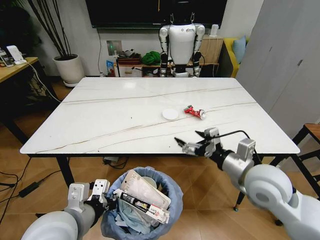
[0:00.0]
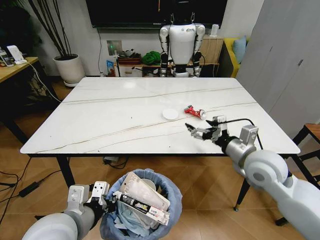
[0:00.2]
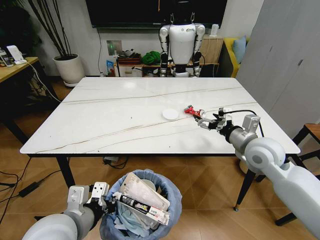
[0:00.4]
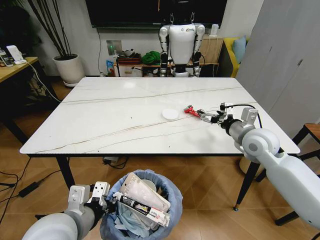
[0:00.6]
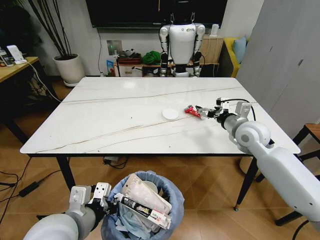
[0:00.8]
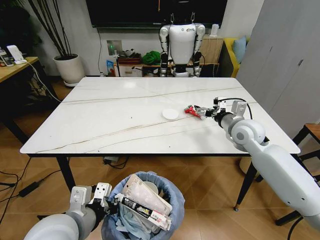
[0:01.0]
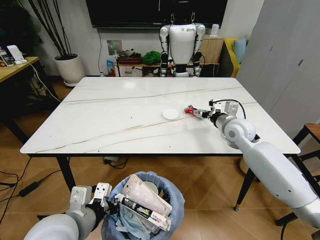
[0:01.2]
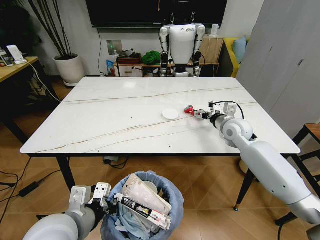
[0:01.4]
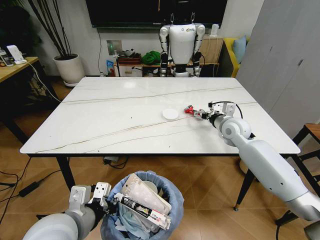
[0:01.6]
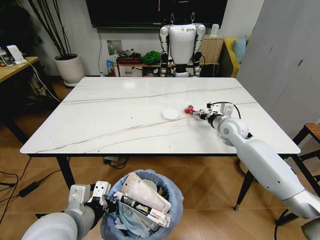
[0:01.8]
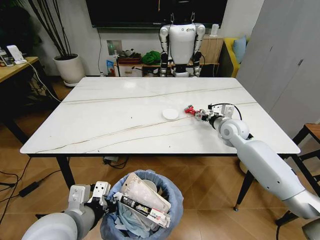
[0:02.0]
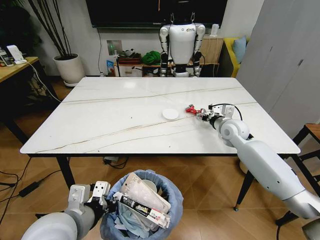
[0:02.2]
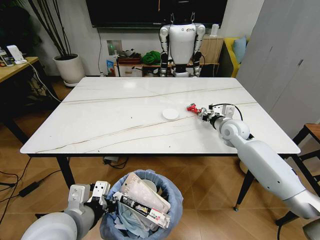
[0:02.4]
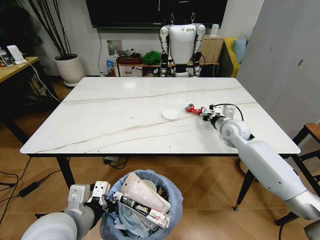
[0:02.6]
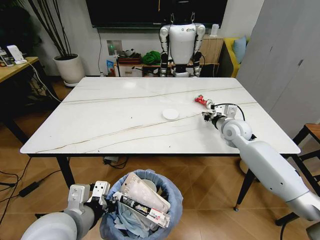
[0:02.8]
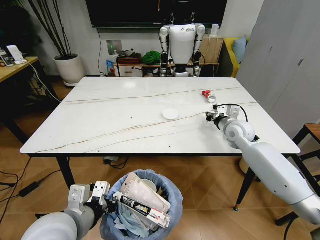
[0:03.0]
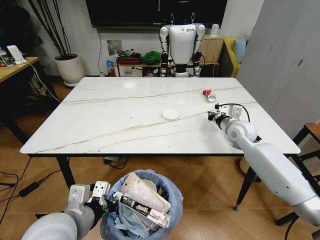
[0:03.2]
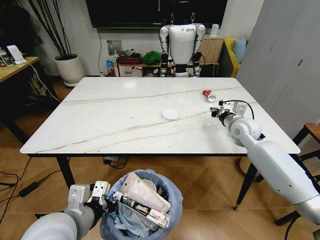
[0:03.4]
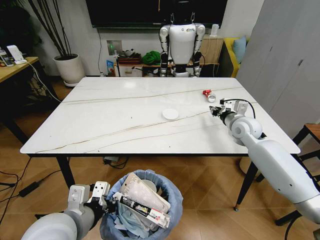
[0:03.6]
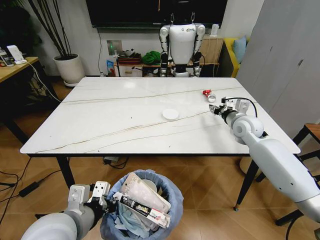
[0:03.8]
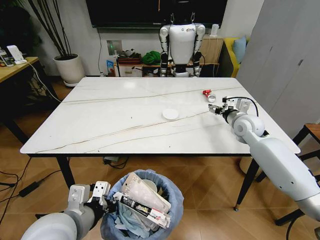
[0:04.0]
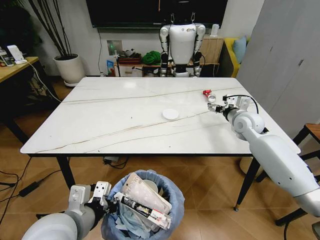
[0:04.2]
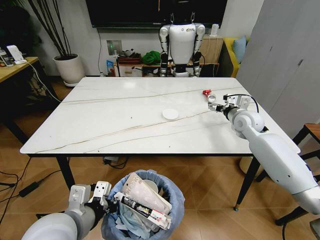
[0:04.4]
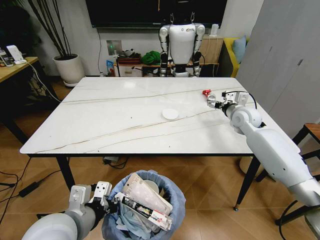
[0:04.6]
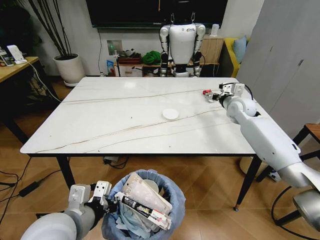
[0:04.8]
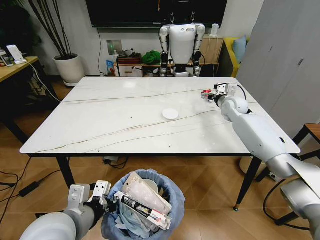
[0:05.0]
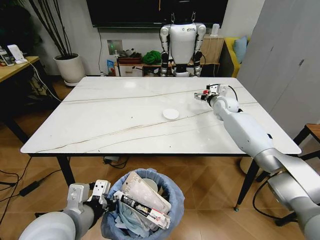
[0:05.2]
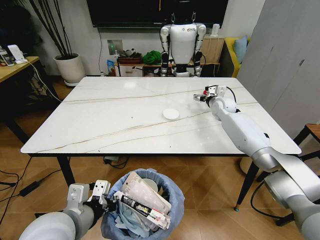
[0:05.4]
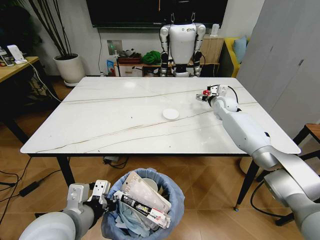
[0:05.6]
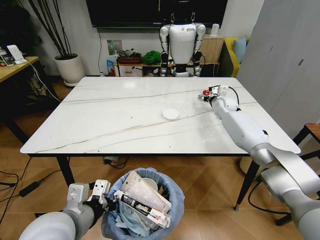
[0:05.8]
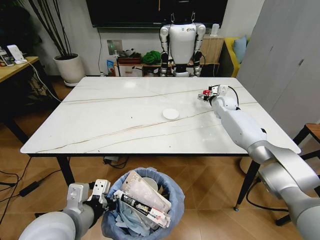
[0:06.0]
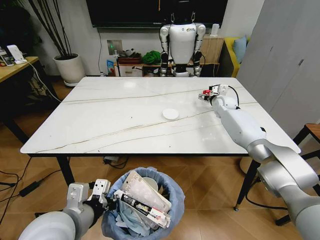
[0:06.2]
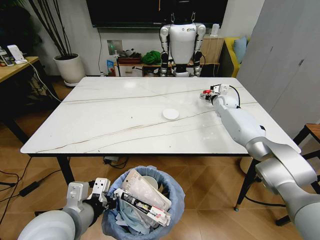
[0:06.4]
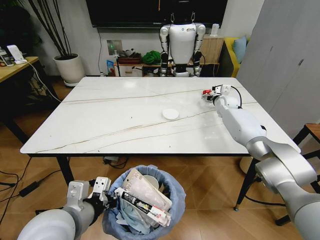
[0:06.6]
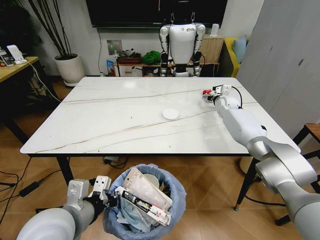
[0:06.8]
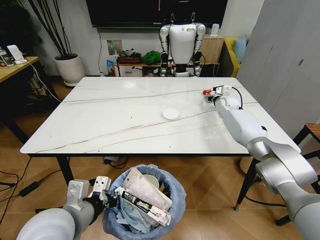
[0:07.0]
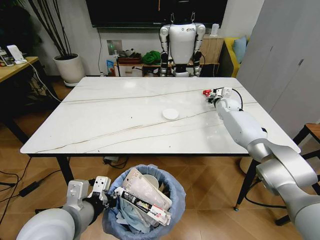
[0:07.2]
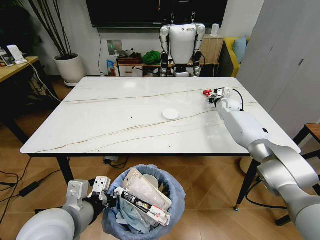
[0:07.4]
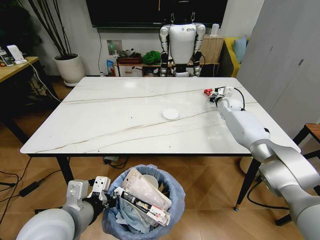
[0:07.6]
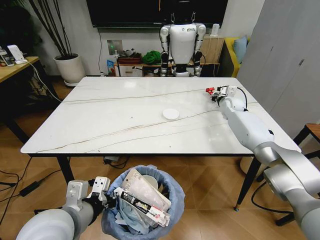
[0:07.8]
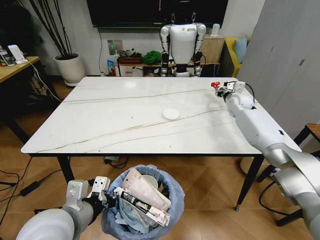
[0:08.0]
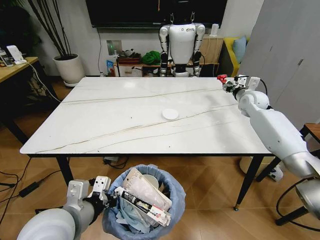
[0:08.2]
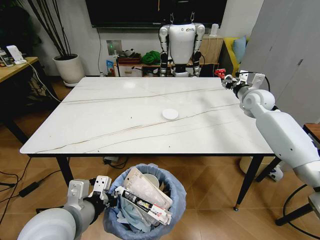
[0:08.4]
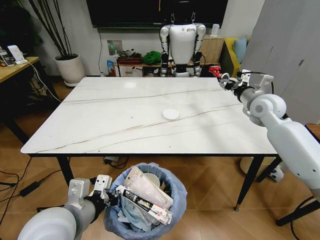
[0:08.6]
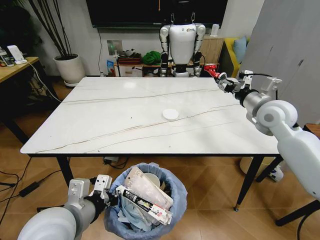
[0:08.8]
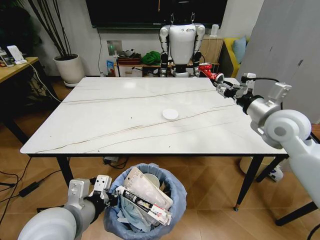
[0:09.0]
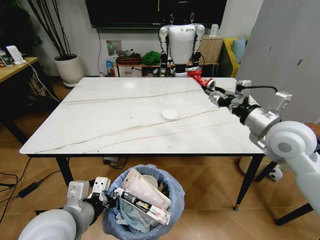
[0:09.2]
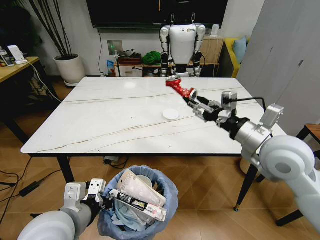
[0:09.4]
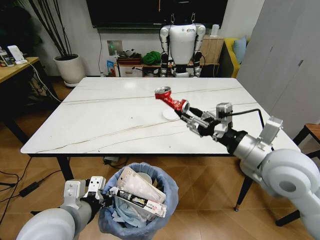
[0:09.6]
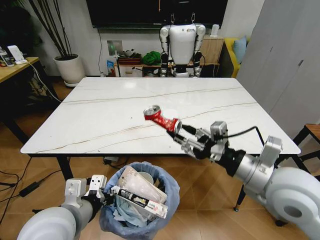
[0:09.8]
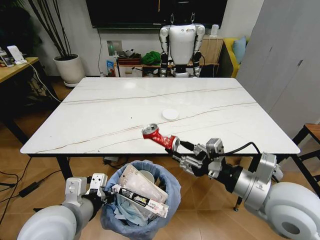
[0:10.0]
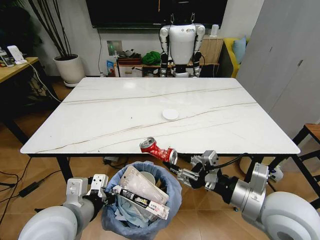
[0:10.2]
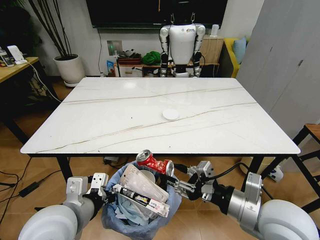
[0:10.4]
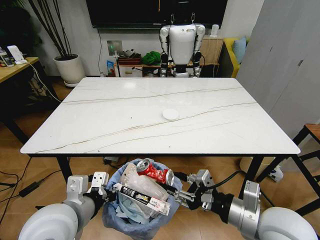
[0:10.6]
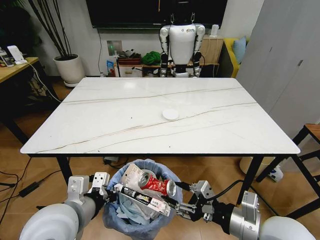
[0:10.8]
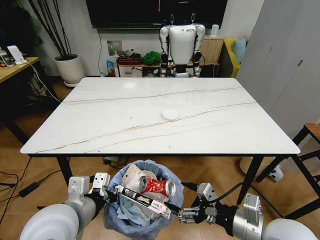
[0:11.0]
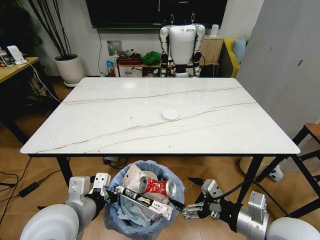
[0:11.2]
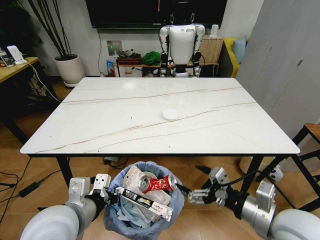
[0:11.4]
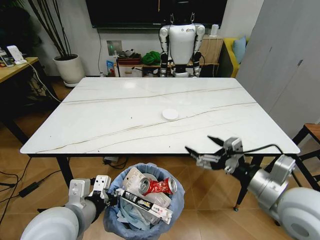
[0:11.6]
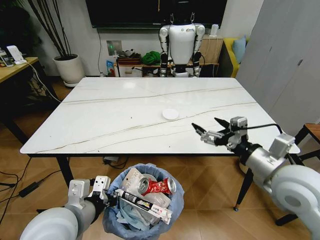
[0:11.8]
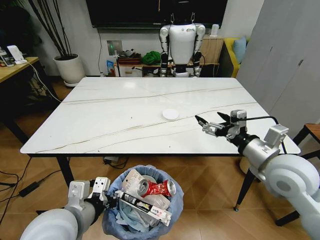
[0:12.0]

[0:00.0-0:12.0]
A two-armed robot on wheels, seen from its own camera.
Task of the whole recording: Pick up the trash bin and place the trash from the table into it.
0:00.0 to 0:01.6: The right gripper goes approximately 25 cm forward.
0:01.6 to 0:03.0: The right gripper closes.
0:03.0 to 0:04.4: The right gripper opens up.
0:04.4 to 0:06.0: The right gripper heads forward, covering roughly 15 cm.
0:06.0 to 0:07.6: The right gripper closes its fingers.
0:07.6 to 0:09.0: The right gripper moves backward and upward, some 30 cm.
0:09.0 to 0:10.4: The right gripper moves backward and to the left, roughly 20 cm.
0:10.4 to 0:12.0: The right gripper travels forward by roughly 10 cm, and opens up.

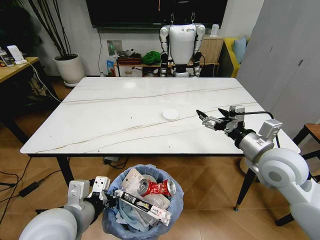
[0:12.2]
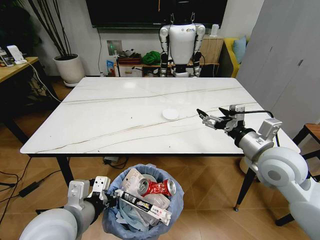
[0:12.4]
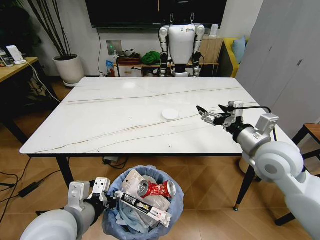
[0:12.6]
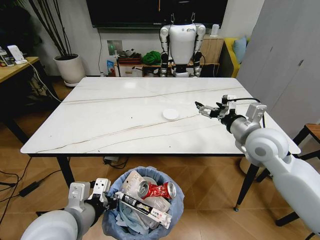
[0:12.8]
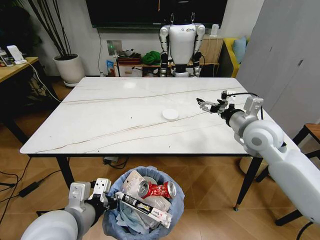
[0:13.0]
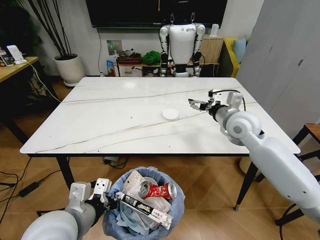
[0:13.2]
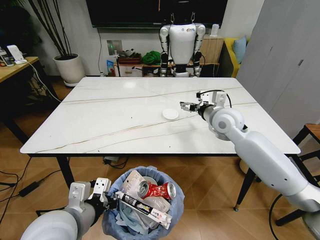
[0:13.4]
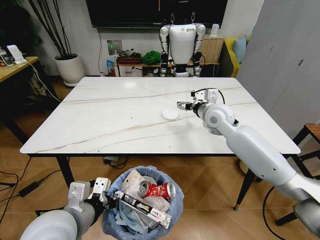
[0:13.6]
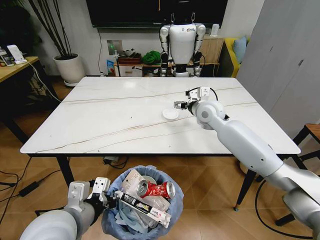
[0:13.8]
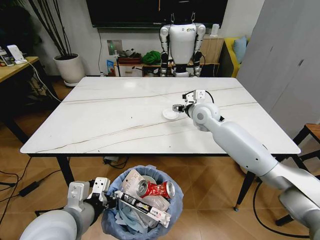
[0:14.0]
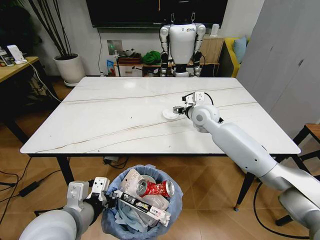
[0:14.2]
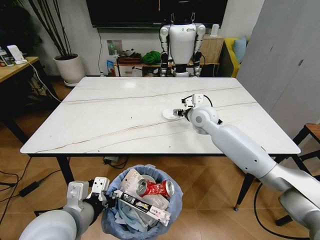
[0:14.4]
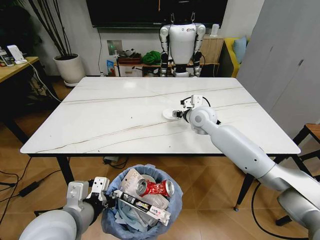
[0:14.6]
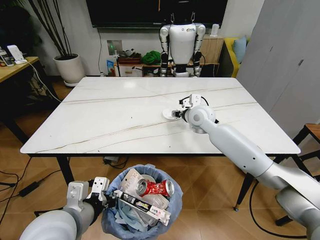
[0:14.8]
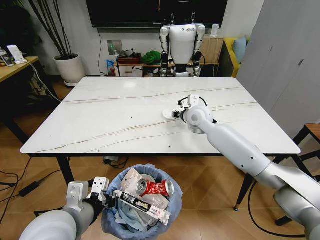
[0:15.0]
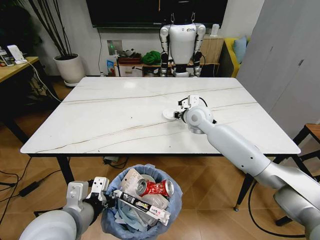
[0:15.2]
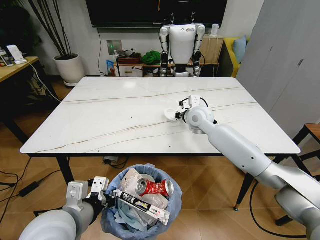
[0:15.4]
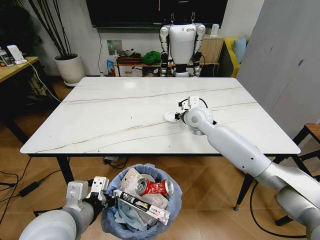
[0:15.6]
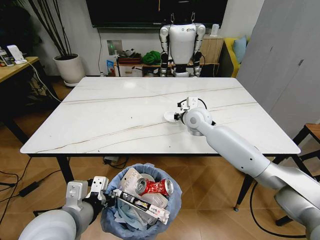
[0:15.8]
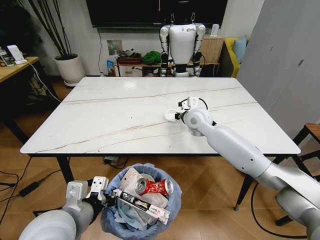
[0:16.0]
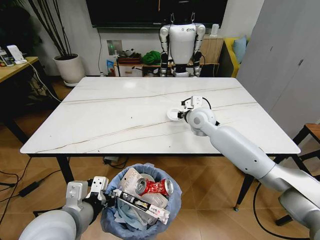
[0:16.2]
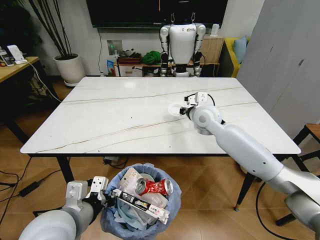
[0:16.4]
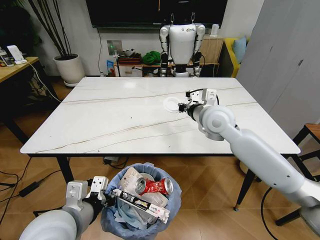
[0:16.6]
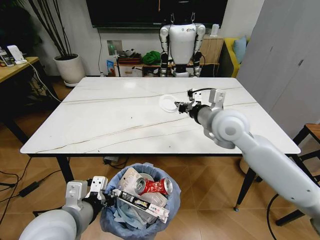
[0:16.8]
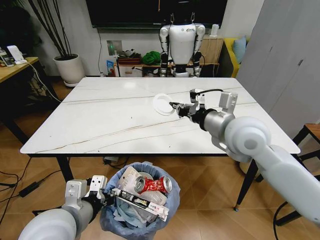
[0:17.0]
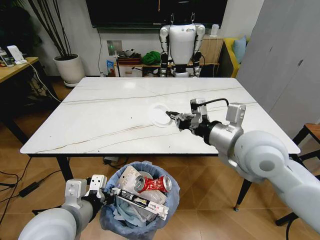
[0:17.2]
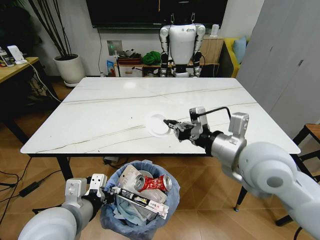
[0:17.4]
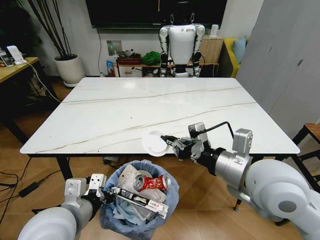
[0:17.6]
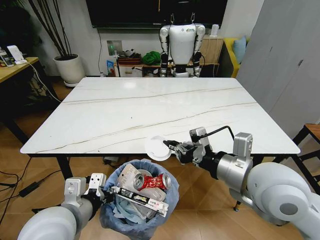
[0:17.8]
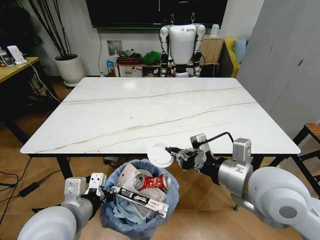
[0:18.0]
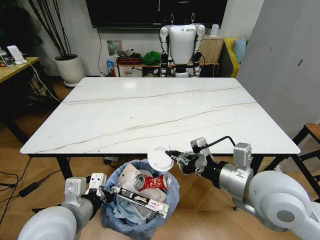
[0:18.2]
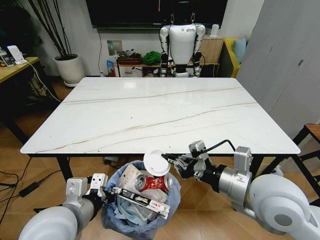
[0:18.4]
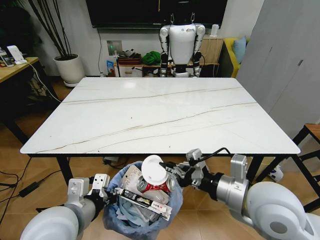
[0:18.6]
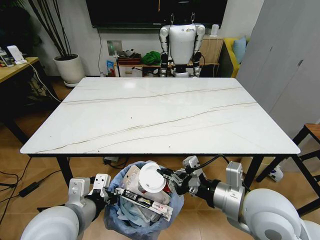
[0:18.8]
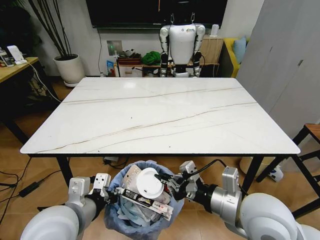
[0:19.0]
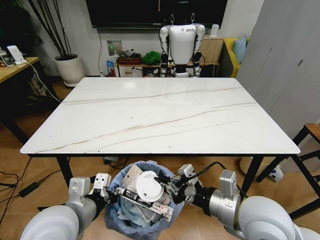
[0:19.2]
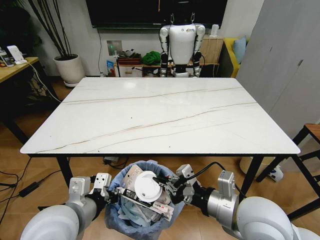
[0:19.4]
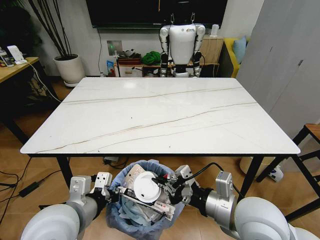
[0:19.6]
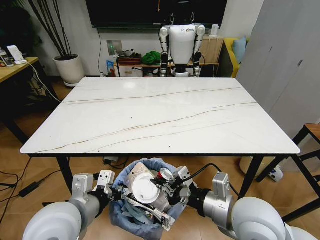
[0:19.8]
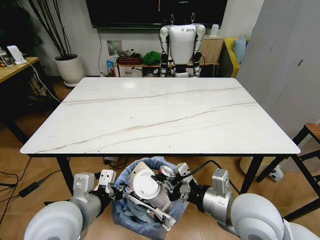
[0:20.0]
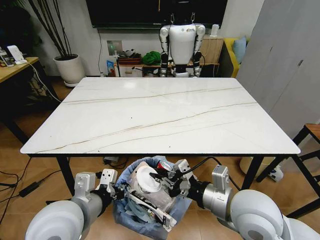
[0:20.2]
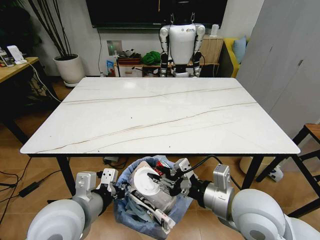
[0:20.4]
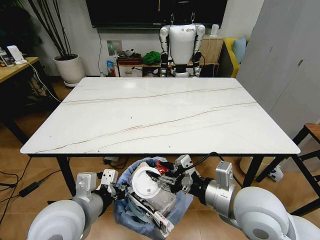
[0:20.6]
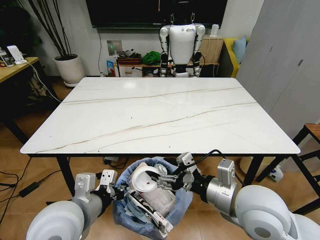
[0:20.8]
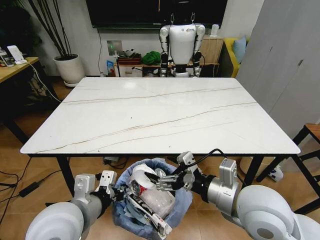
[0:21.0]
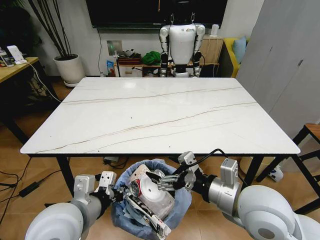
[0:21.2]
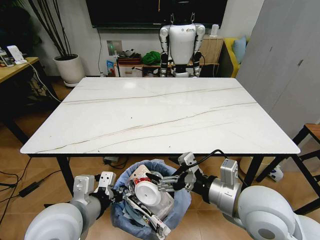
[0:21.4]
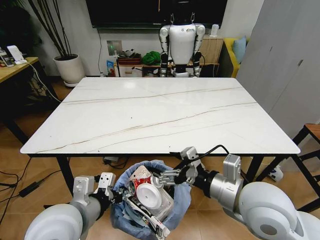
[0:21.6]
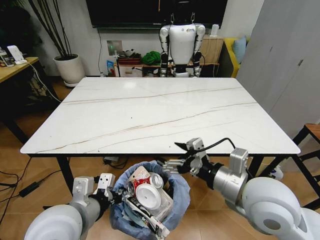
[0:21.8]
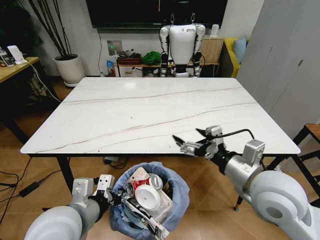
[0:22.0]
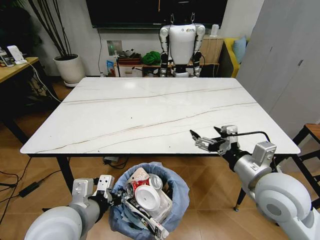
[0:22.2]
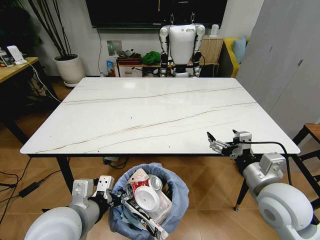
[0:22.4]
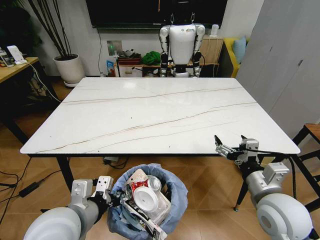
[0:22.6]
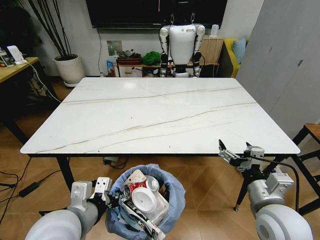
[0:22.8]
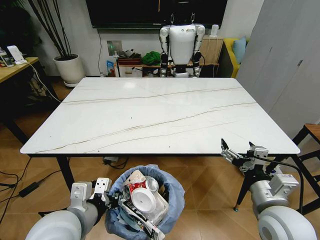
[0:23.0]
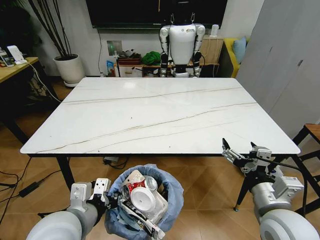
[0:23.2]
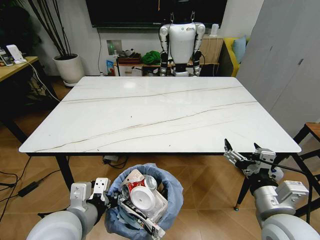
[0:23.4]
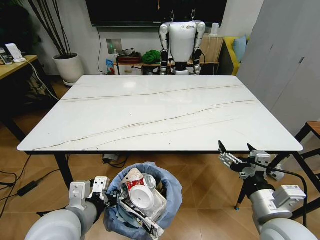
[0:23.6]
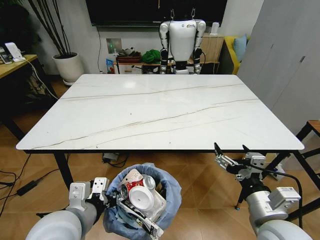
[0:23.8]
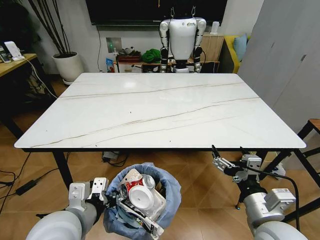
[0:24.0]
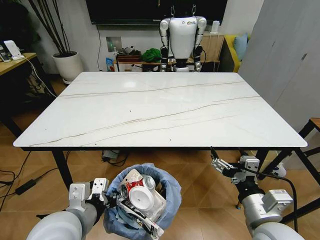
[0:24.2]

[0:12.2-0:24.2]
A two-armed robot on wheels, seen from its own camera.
Task of the whole recording: Pick up the trash bin and place the trash from the table into it.
0:12.2 to 0:13.8: The right gripper is displaced forward and to the left by roughly 25 cm.
0:13.8 to 0:15.2: The right gripper closes.
0:15.2 to 0:16.6: The right gripper heads backward and upward, covering about 10 cm, and closes.
0:16.6 to 0:18.2: The right gripper travels backward by roughly 25 cm.
0:18.2 to 0:19.8: The right gripper travels downward by approximately 5 cm.
0:19.8 to 0:21.2: The right gripper opens up.
0:21.2 to 0:22.6: The right gripper heads to the right and downward, covering some 10 cm.
0:22.6 to 0:24.2: The right gripper heads backward, covering approximately 5 cm.
